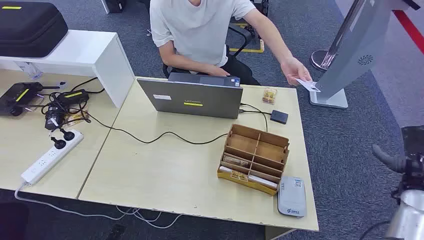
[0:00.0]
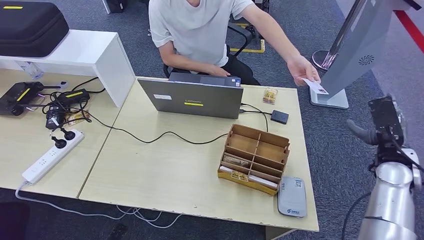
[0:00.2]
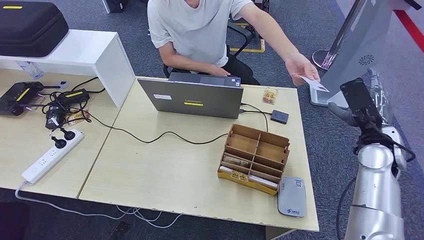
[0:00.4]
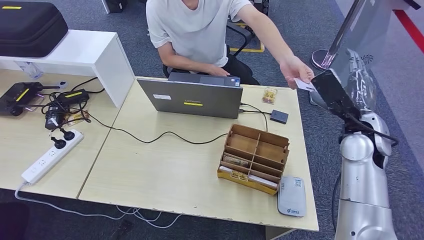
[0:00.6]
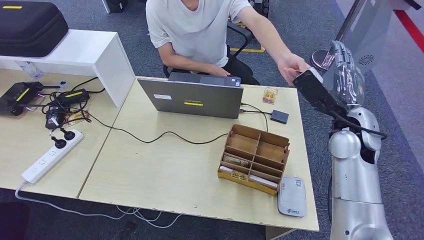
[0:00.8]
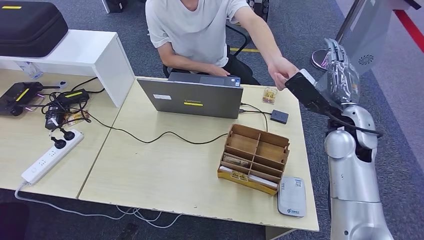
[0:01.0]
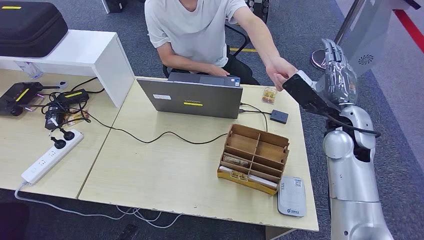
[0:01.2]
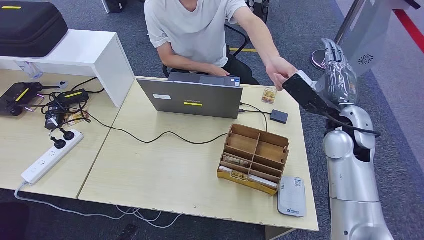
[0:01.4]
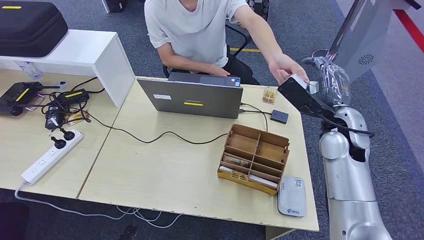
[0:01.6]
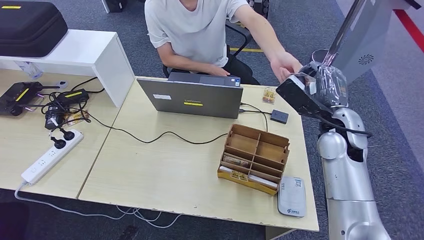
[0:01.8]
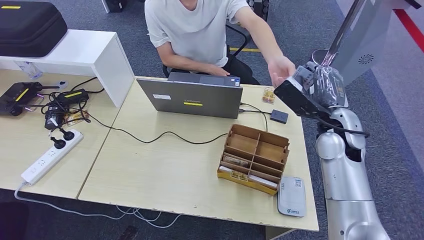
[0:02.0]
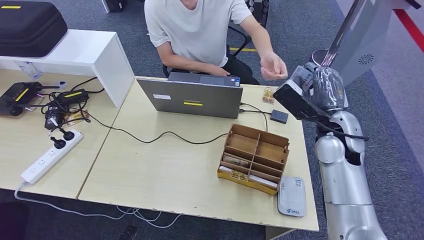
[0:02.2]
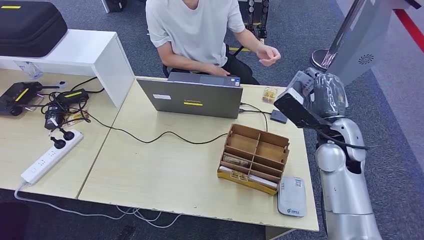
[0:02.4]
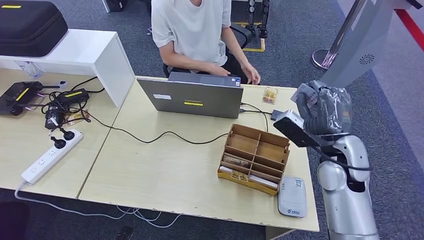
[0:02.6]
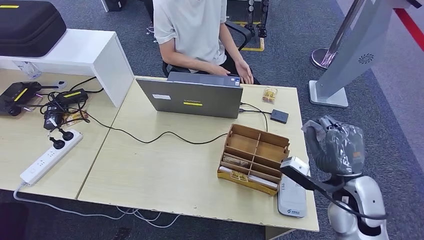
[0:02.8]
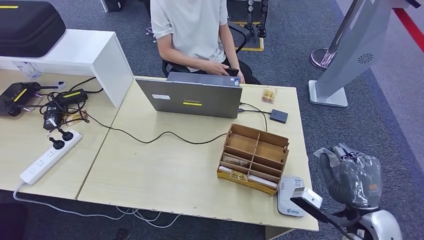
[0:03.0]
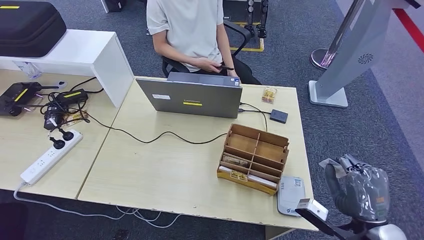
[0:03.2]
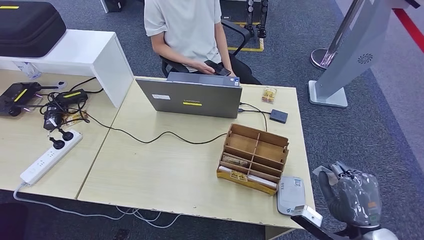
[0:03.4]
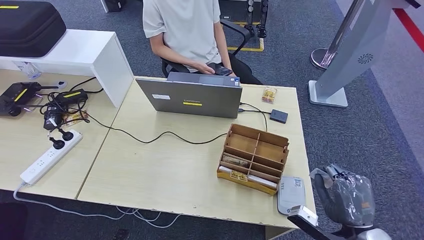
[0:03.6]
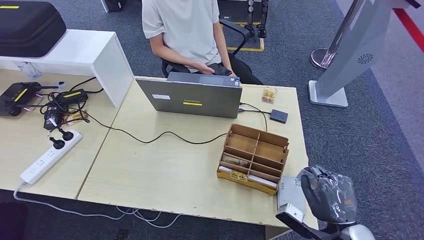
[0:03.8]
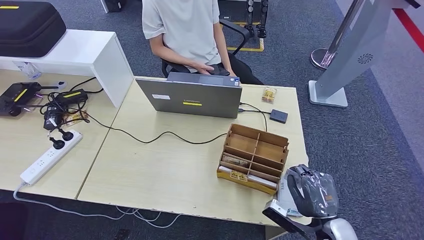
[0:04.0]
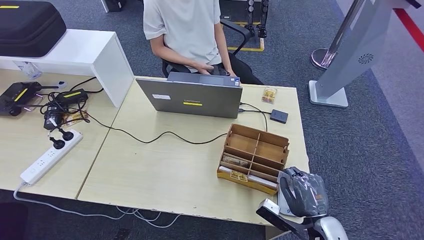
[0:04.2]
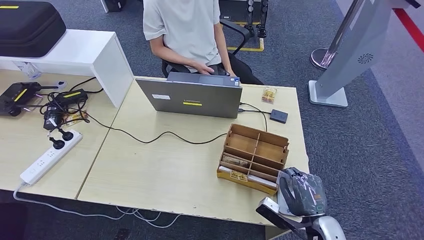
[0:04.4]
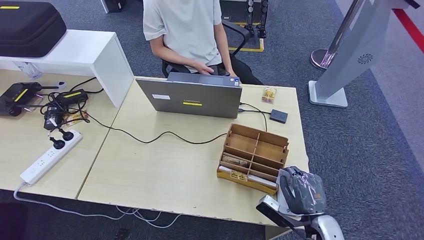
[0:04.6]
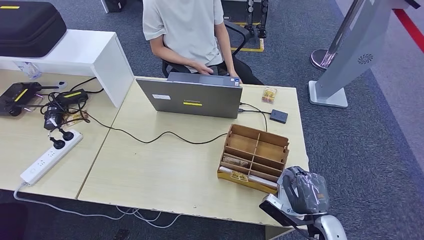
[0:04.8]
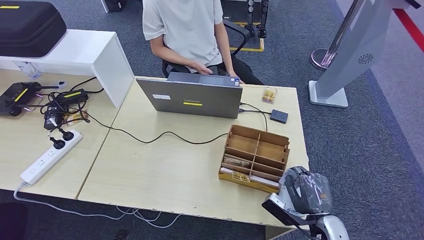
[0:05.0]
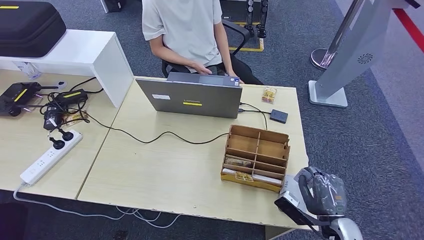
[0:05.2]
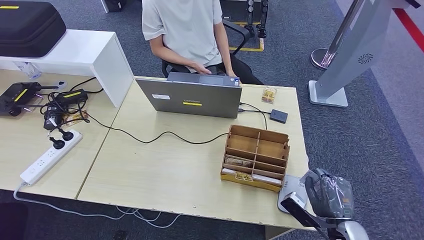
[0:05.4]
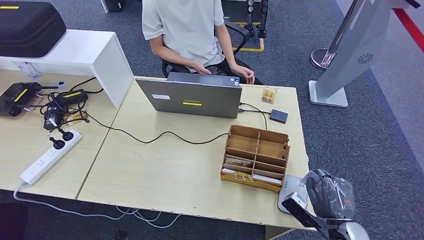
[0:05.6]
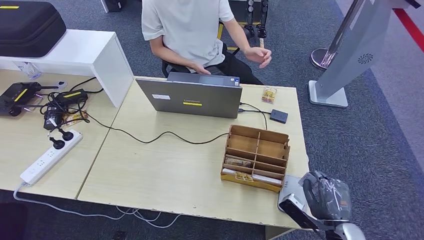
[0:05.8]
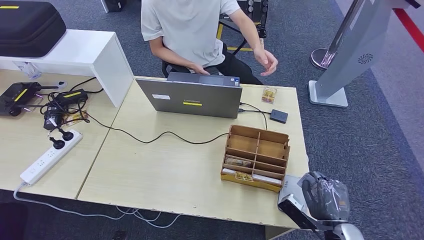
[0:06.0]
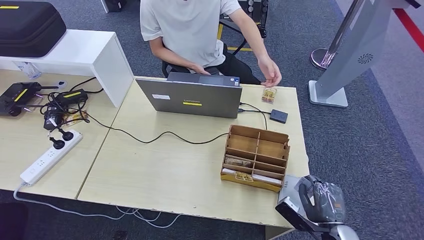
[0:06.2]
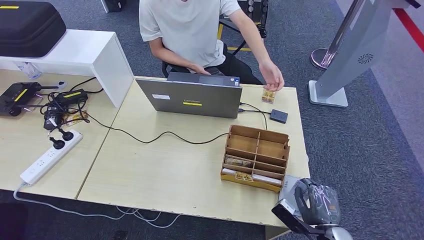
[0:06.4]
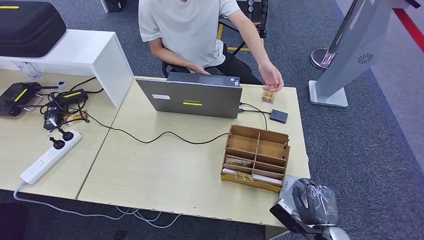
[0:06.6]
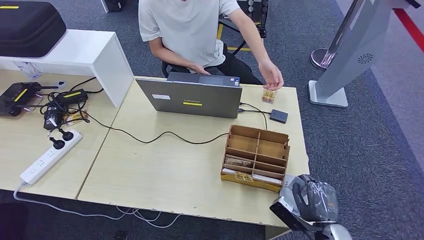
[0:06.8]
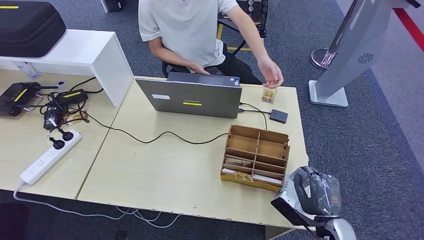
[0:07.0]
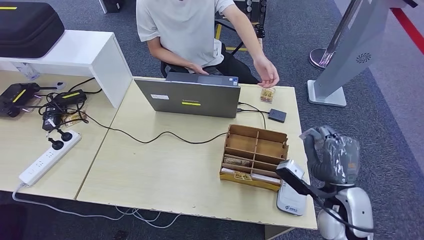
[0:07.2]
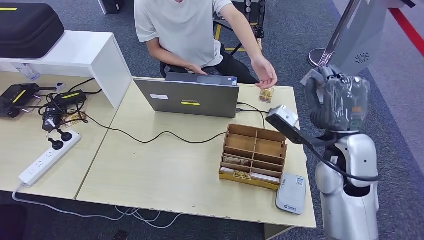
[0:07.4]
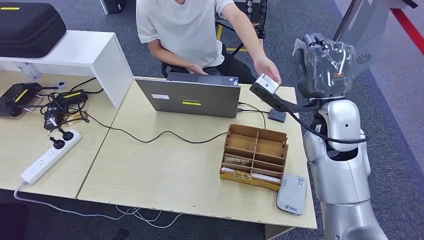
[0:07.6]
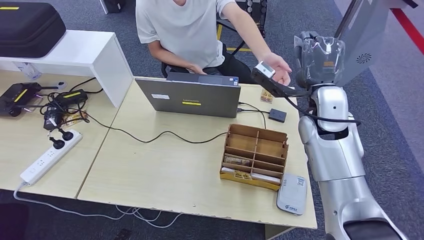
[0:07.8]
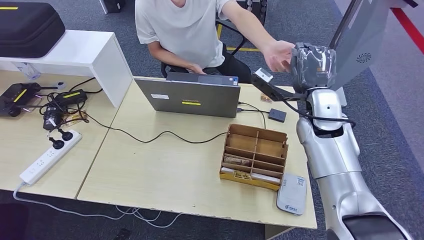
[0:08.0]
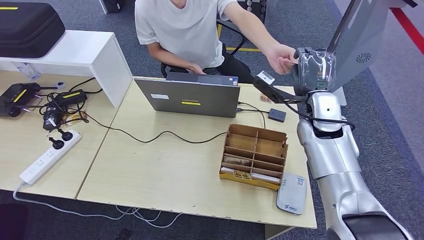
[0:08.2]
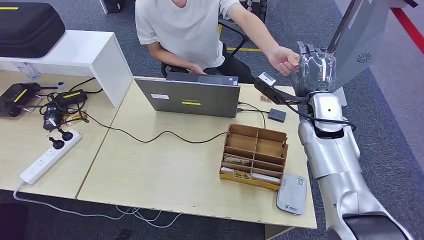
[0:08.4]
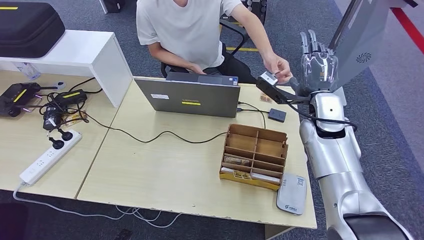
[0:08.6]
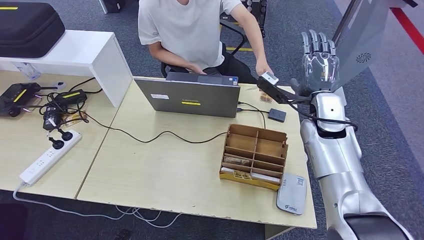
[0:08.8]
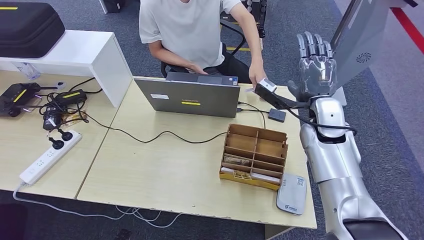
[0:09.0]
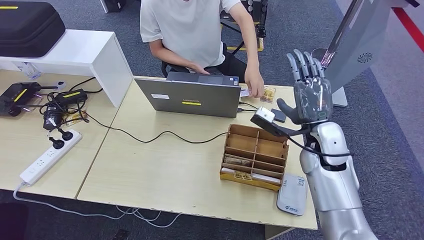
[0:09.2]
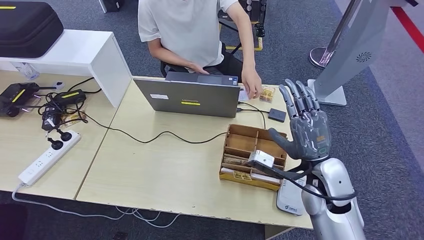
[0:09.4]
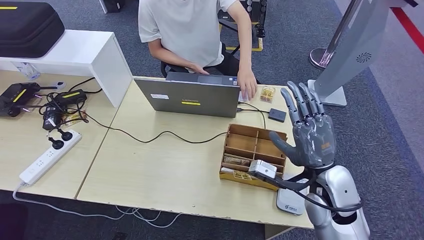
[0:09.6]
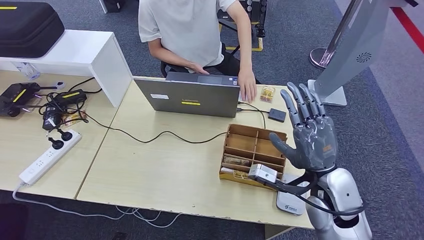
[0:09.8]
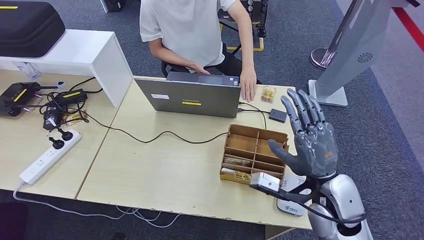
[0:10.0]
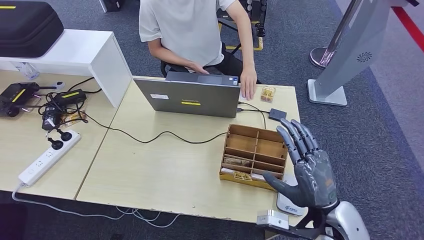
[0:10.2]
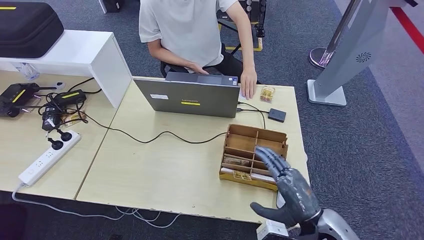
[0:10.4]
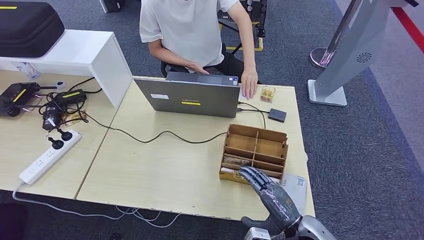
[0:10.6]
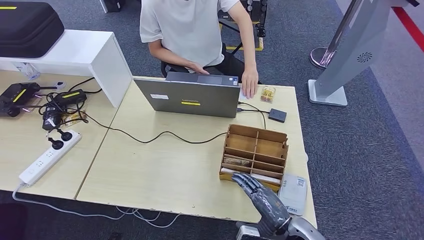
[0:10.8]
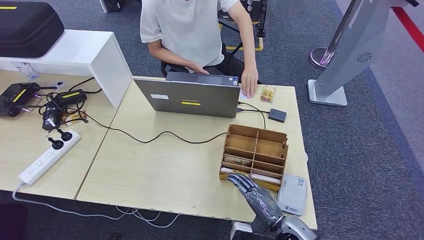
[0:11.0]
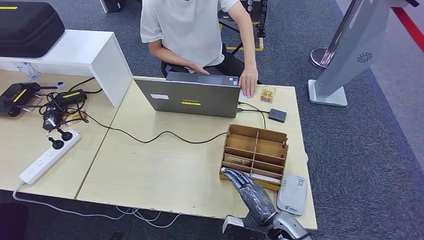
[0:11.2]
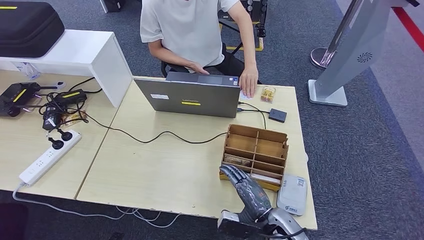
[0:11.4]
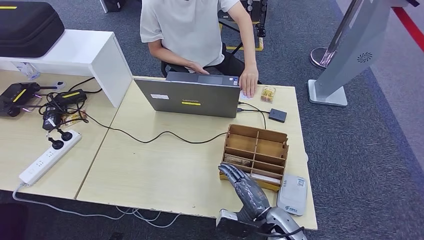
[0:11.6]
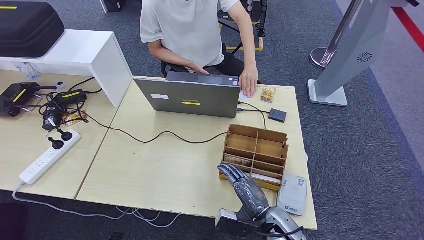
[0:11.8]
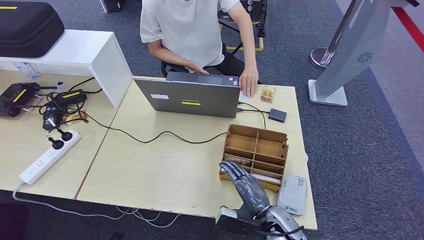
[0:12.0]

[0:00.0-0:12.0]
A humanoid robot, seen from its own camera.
Step, 0:00.0 to 0:02.6: Take the ID card from the person's hand.
Step, 0:02.8 to 0:07.6: Place the ID card on the card reader.
Step, 0:07.8 to 0:09.6: Hand the ID card to the person.
0:01.6 to 0:03.0: The right hand travels backward and downward by roughly 20 cm.
0:03.0 to 0:04.4: The right hand travels downward and to the left by about 10 cm.
0:04.4 to 0:06.0: There are only small adjustments of the hands.
0:06.0 to 0:07.6: The right hand travels upward and forward by some 35 cm.
0:07.6 to 0:09.0: The right hand is displaced downward by some 5 cm.
0:09.0 to 0:10.4: The right hand shifts roughly 25 cm backward and downward.
0:10.4 to 0:12.0: The right hand moves downward and to the left, about 10 cm.

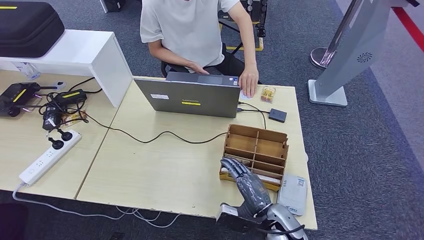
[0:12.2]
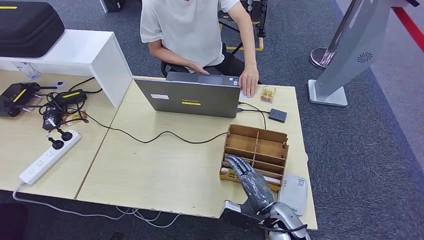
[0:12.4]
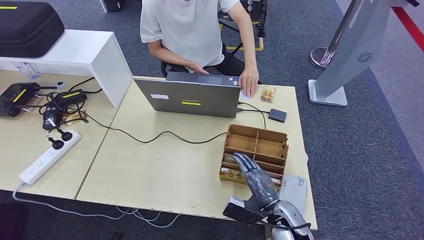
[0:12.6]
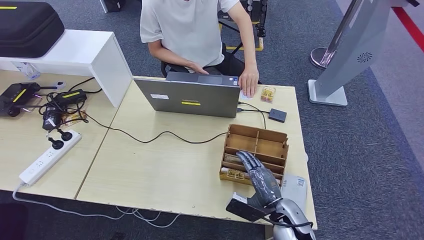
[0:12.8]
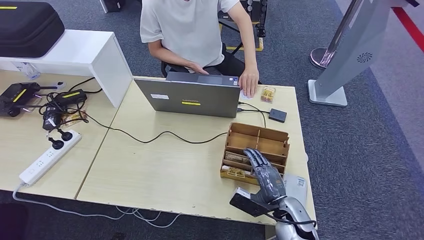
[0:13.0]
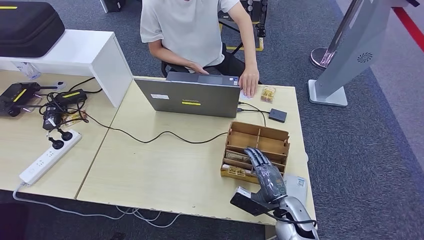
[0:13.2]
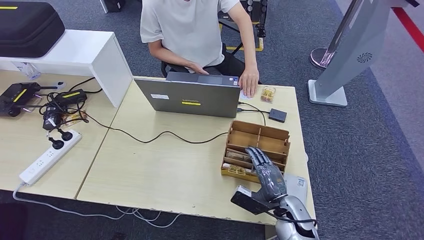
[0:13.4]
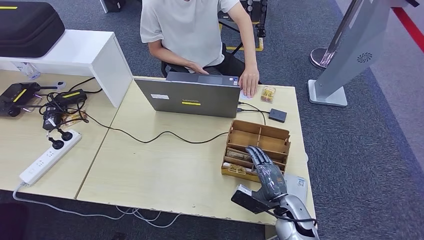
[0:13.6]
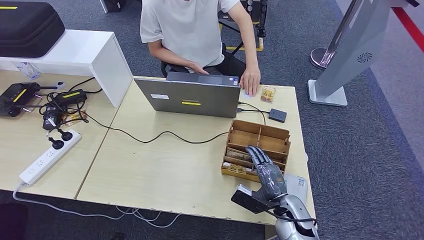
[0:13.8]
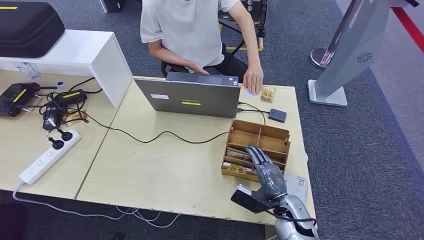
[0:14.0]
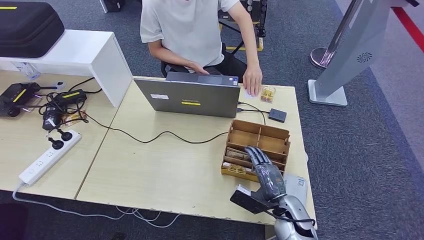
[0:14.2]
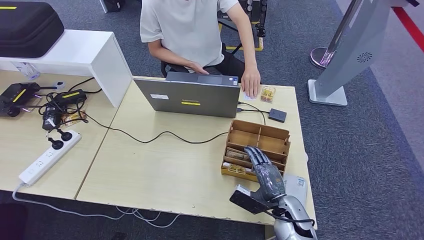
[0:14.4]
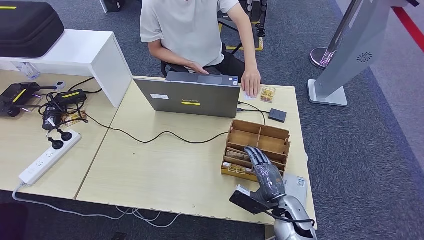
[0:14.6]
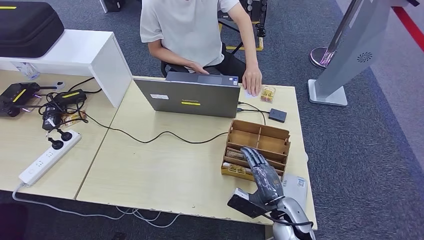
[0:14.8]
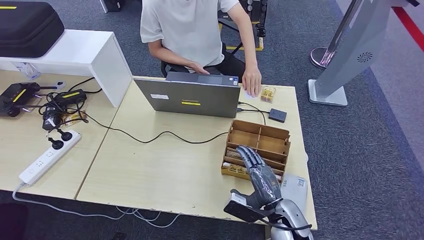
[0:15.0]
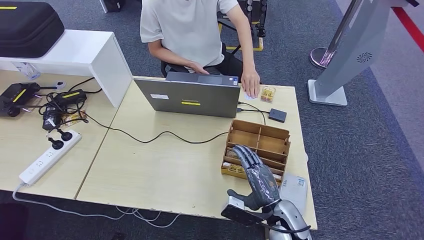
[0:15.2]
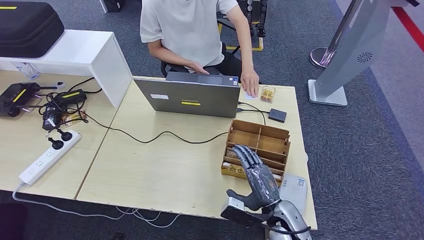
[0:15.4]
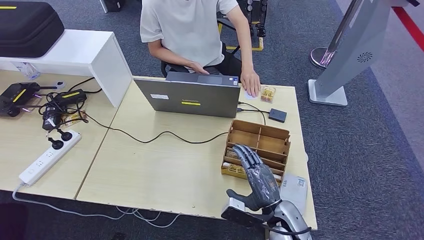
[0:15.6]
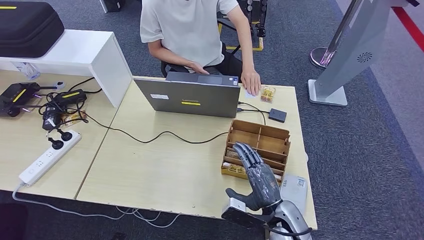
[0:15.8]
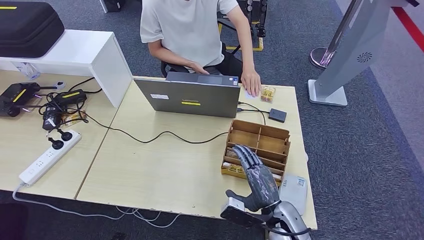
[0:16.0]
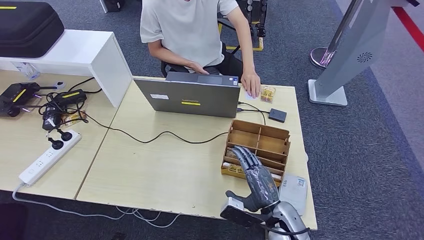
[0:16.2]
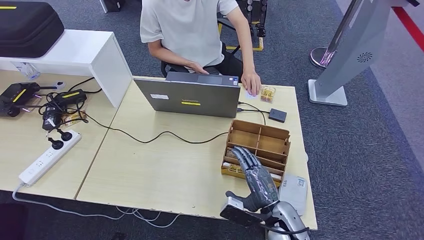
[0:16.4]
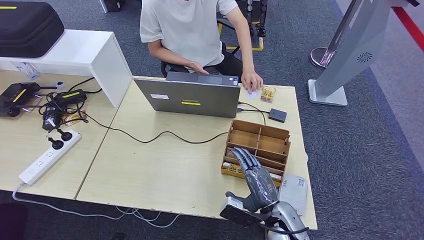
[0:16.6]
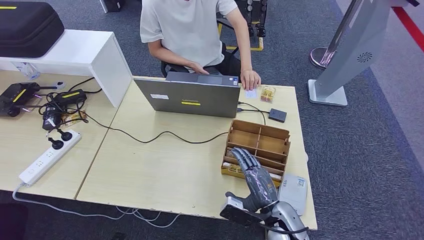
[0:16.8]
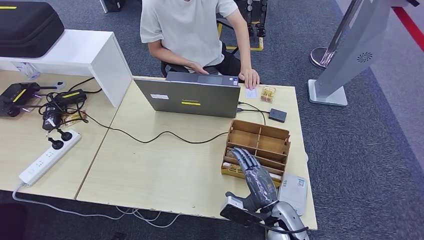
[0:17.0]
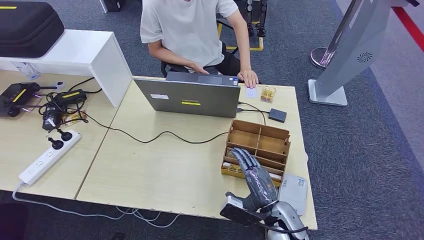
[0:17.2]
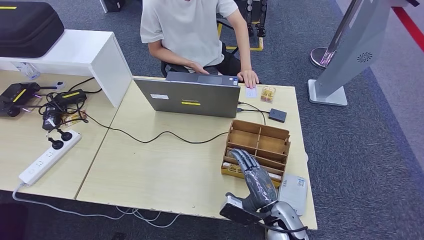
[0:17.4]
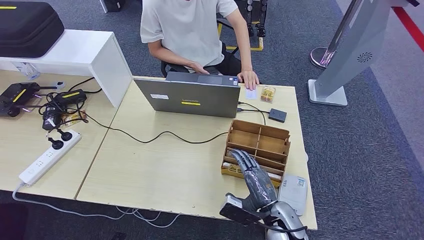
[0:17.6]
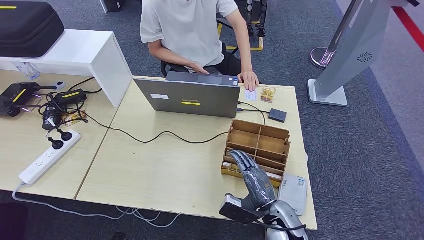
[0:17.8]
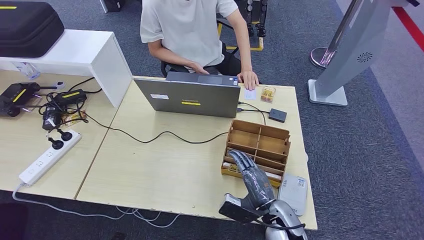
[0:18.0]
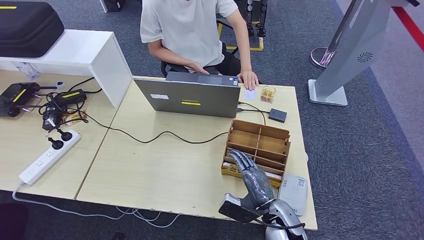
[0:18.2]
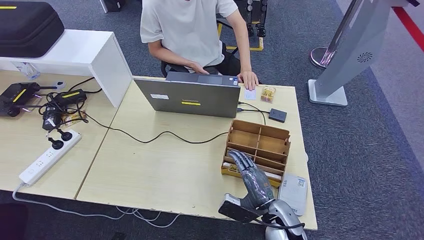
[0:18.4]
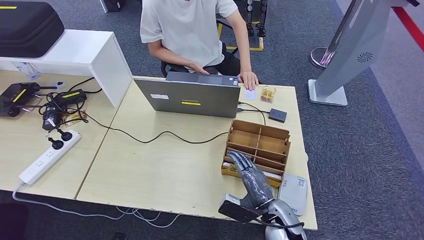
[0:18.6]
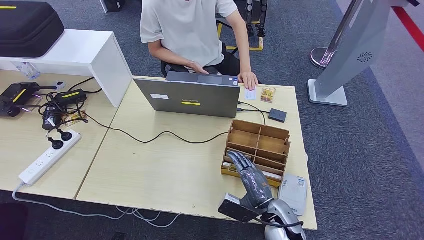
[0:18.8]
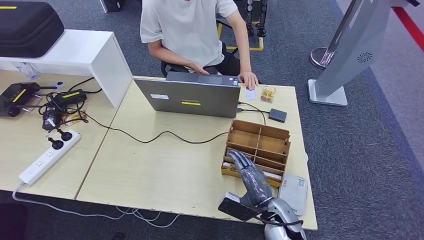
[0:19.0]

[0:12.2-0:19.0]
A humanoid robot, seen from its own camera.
0:12.2 to 0:16.2: The hands stay close to where they were, moving slightly.
0:16.2 to 0:17.6: The two hands keep their place.
0:17.6 to 0:19.0: Both hands stay put.
